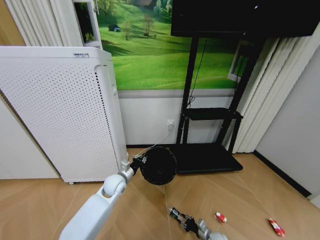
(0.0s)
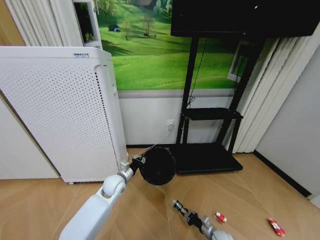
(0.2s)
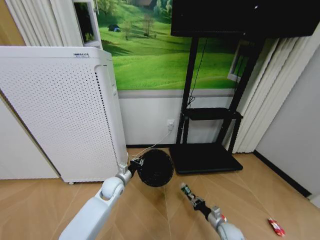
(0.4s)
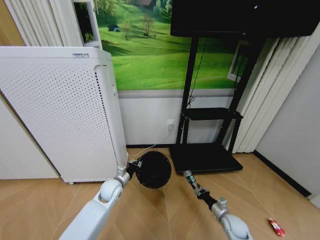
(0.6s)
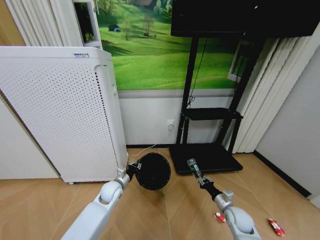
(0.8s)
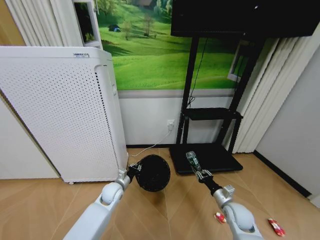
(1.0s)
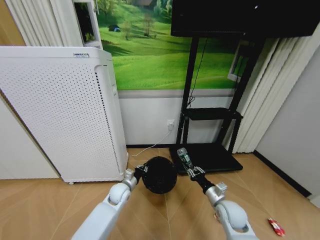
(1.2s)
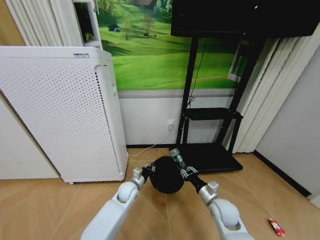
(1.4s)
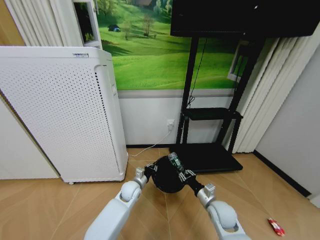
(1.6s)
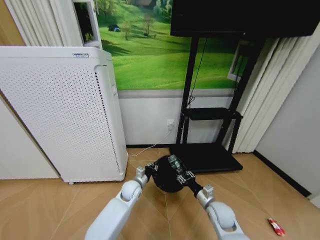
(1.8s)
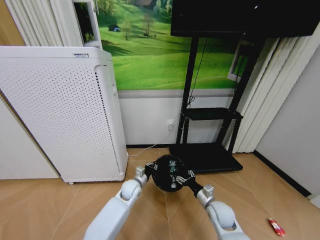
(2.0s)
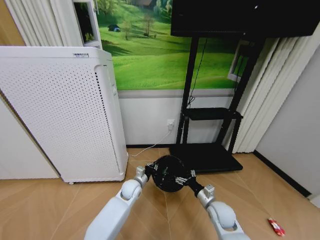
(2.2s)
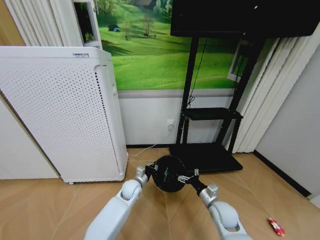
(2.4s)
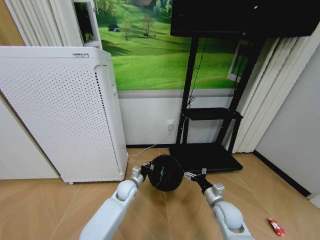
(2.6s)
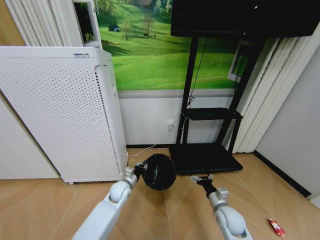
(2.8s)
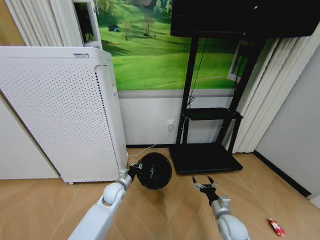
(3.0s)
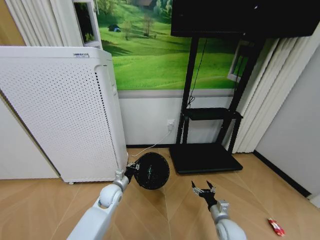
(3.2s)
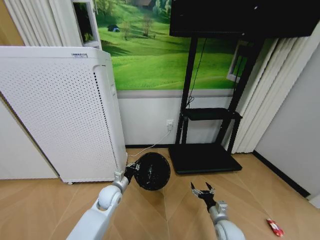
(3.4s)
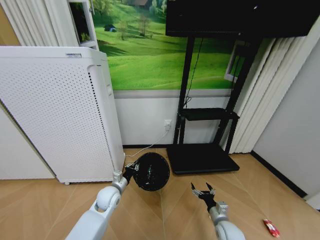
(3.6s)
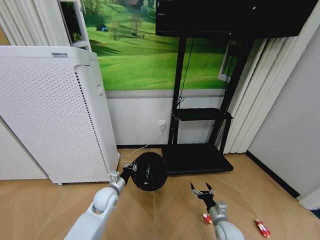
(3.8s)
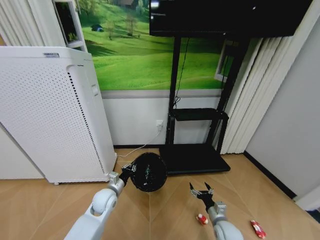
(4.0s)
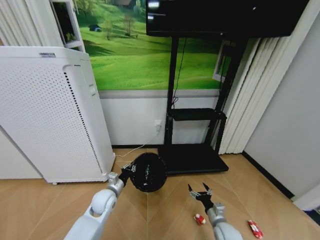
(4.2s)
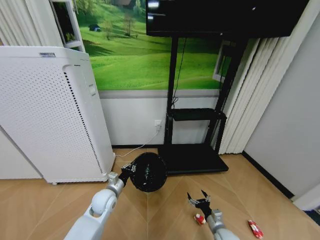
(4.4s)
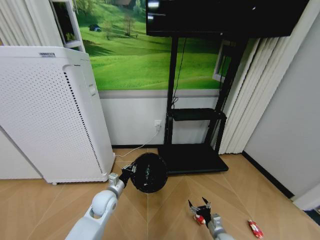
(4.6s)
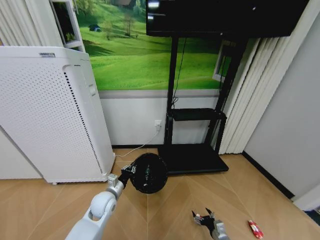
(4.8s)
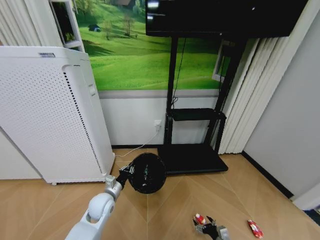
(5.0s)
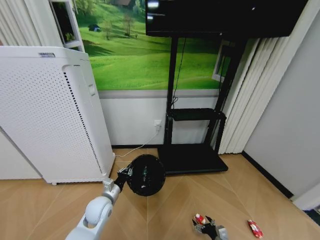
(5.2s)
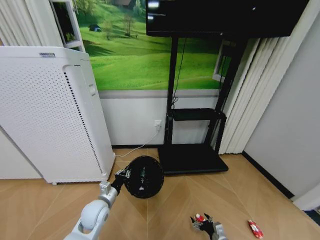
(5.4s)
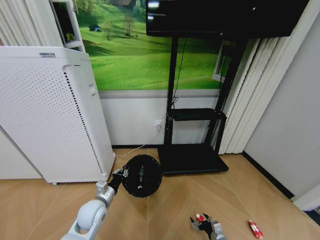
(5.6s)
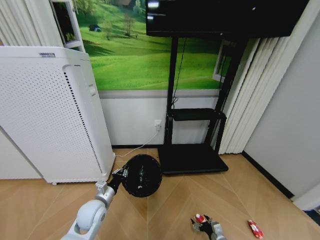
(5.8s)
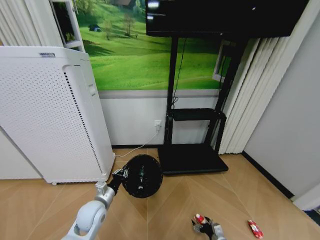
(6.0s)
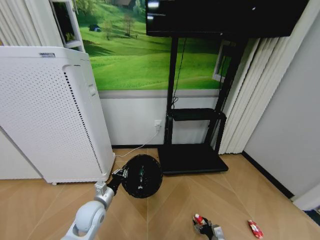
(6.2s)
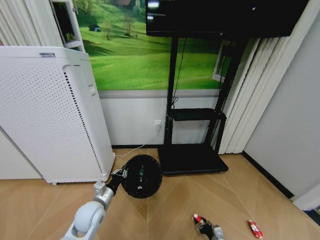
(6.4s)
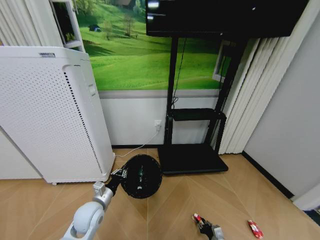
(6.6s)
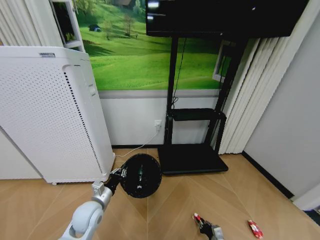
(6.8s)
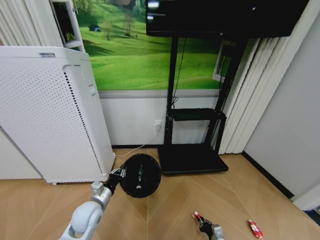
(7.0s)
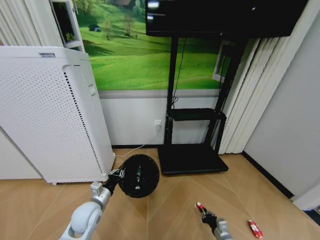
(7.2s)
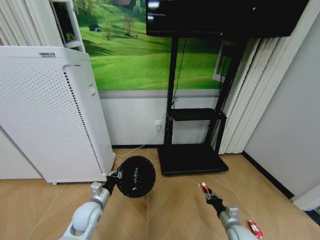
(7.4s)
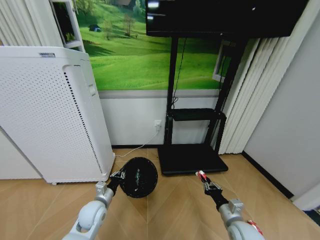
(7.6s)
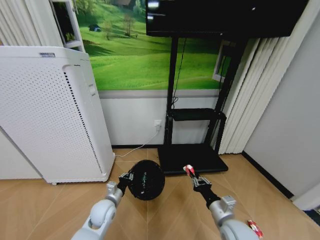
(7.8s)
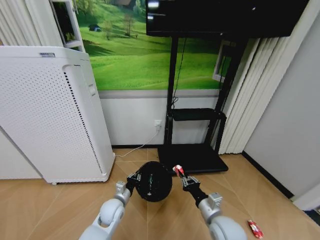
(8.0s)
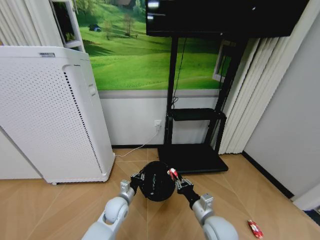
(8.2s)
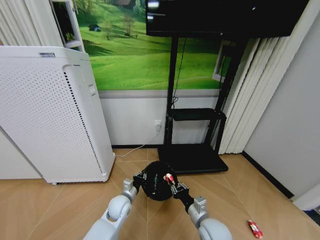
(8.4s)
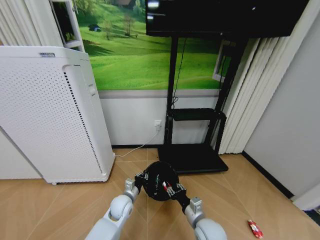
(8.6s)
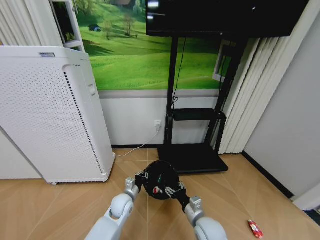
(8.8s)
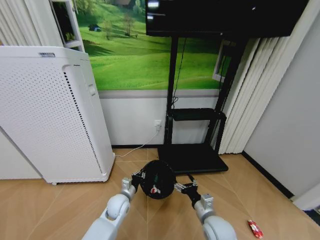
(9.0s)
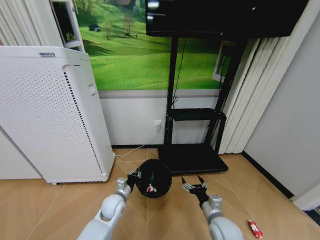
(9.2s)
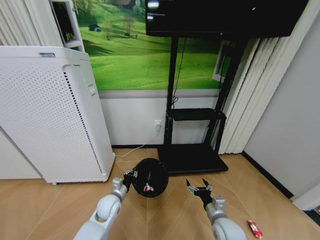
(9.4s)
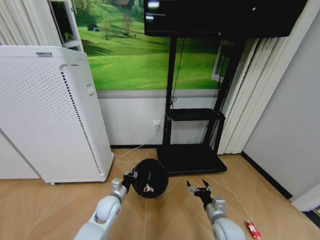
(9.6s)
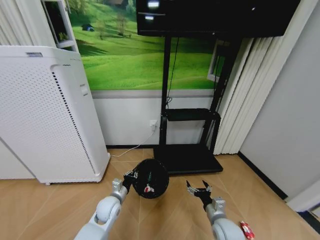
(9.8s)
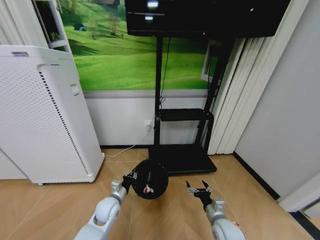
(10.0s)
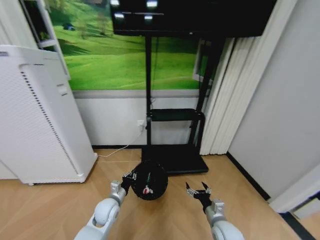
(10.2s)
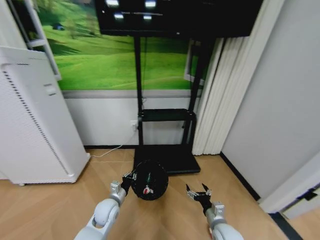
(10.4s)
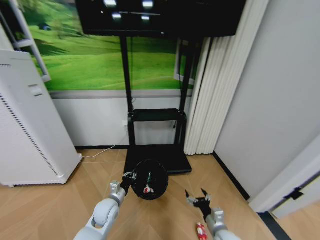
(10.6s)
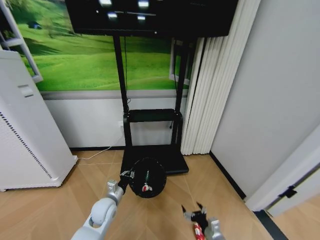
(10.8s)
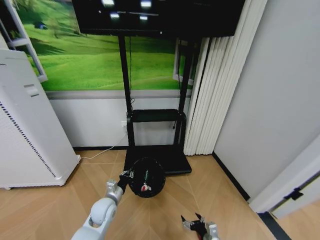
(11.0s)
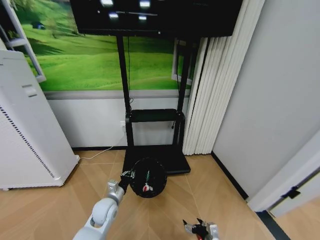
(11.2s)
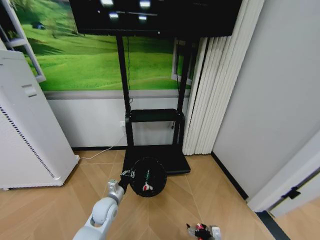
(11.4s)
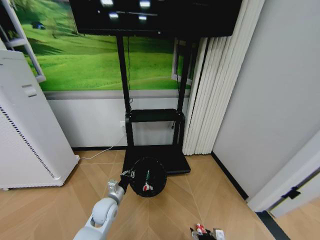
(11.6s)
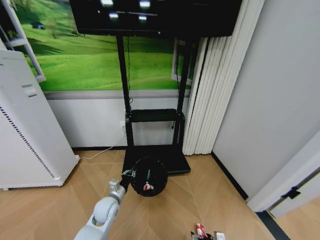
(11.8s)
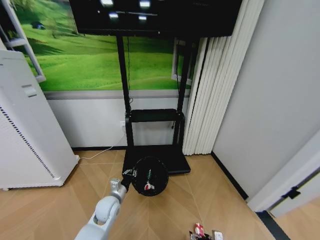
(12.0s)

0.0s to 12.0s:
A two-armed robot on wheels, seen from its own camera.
Task of the whole recording: Pick up the trash bin and place the garbage on the floor into it.
0.0s to 1.6s: The left gripper is displaced to the right and downward by roughly 10 cm. Meanwhile the right gripper travels upward by roughly 25 cm.
1.6s to 3.0s: The right gripper travels downward by approximately 5 cm, and opens its fingers. Meanwhile the left gripper shifts about 10 cm to the left.
3.0s to 4.4s: The right gripper moves downward, approximately 5 cm, while the left gripper moves some 5 cm.
4.4s to 6.0s: The right gripper travels downward by approximately 10 cm. Meanwhile the left gripper heads backward, covering roughly 5 cm.
6.0s to 7.6s: The right gripper moves upward, some 20 cm, and closes.
7.6s to 9.0s: The left gripper shifts some 10 cm to the right. Meanwhile the right gripper goes approximately 10 cm to the left, and opens up.
9.0s to 10.4s: The left gripper changes place by approximately 5 cm, while the right gripper moves to the right and downward, about 10 cm.
10.4s to 12.0s: The right gripper shifts roughly 15 cm downward.

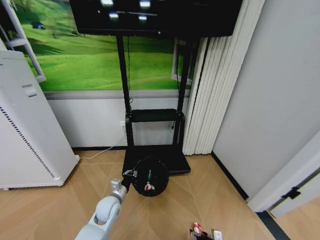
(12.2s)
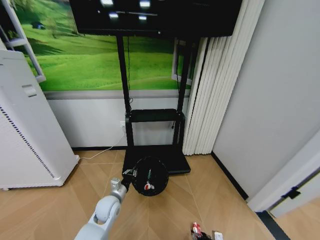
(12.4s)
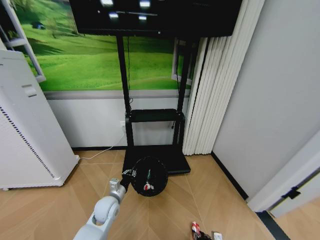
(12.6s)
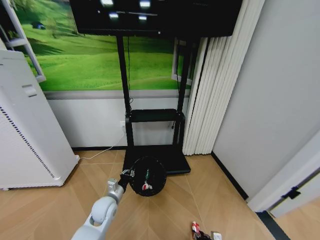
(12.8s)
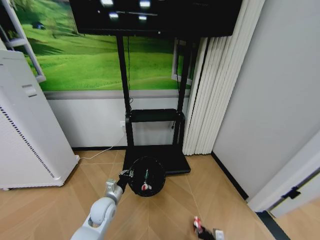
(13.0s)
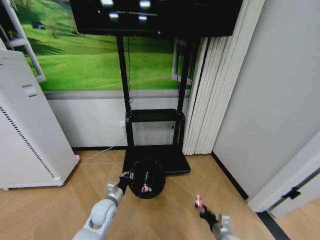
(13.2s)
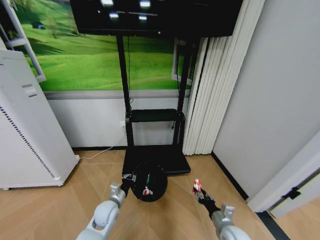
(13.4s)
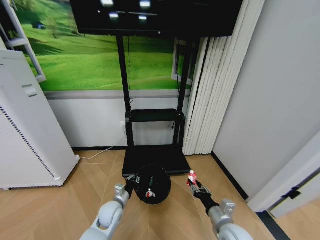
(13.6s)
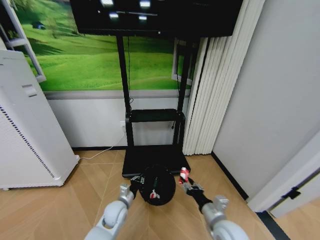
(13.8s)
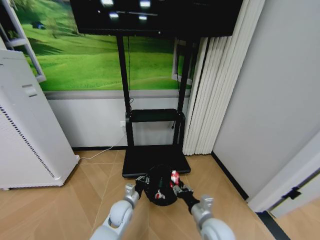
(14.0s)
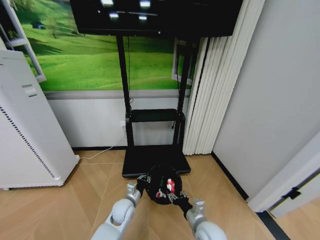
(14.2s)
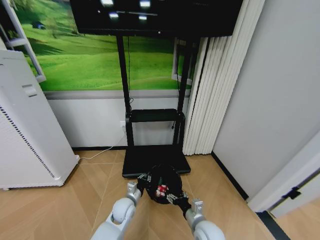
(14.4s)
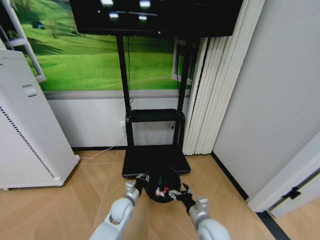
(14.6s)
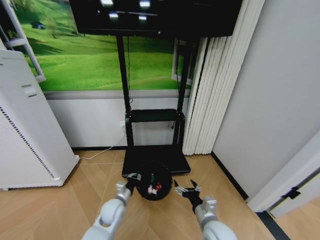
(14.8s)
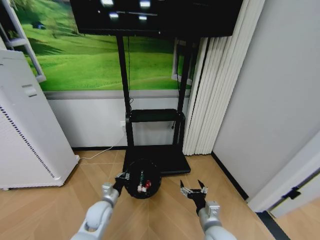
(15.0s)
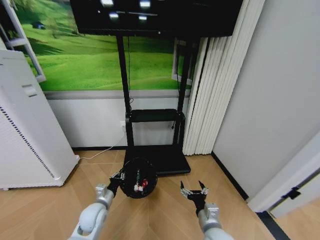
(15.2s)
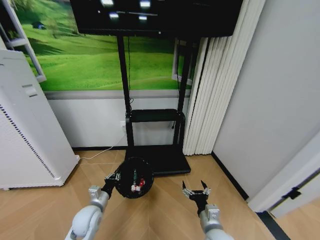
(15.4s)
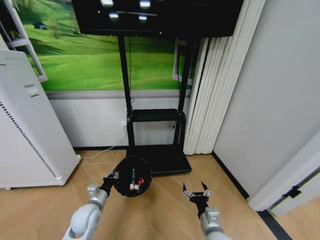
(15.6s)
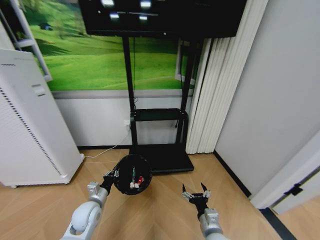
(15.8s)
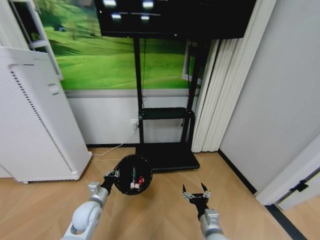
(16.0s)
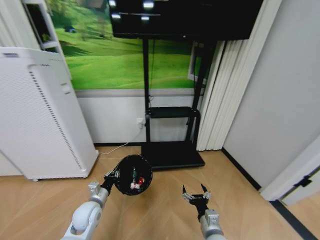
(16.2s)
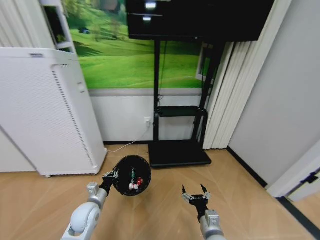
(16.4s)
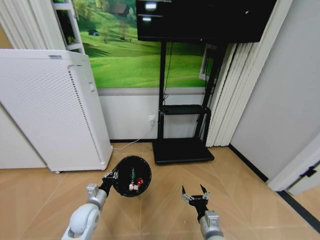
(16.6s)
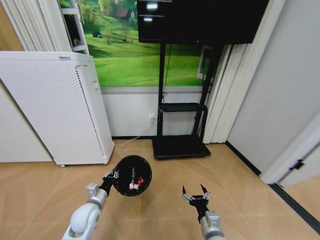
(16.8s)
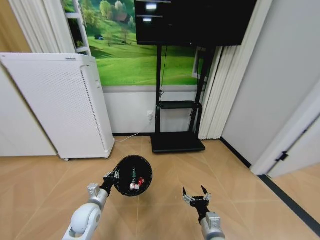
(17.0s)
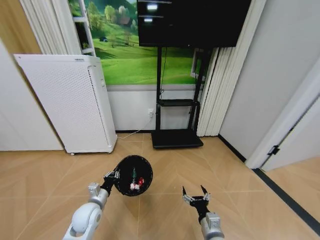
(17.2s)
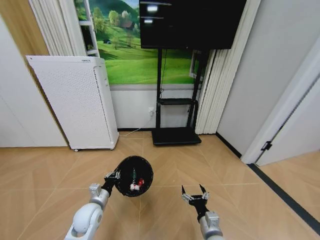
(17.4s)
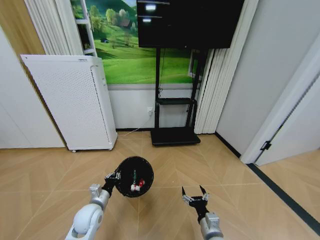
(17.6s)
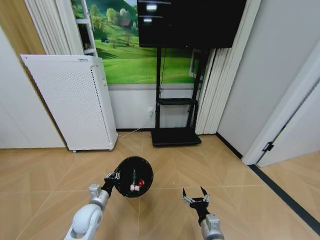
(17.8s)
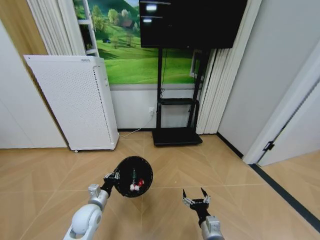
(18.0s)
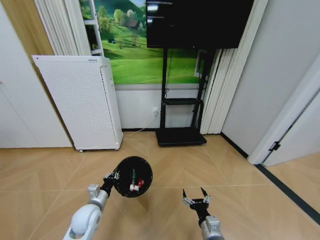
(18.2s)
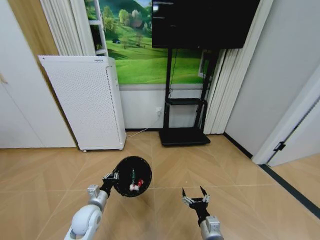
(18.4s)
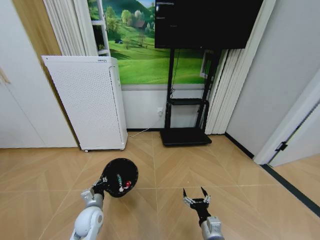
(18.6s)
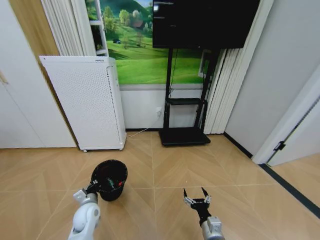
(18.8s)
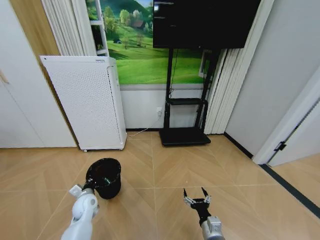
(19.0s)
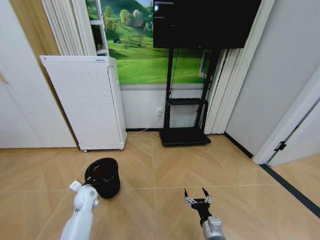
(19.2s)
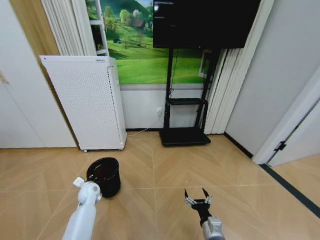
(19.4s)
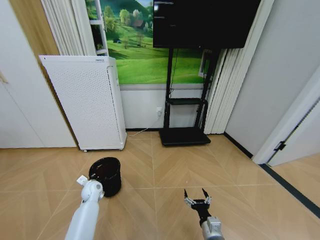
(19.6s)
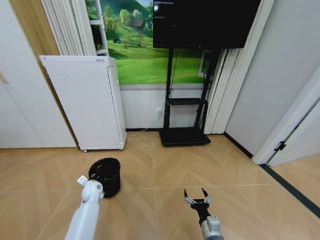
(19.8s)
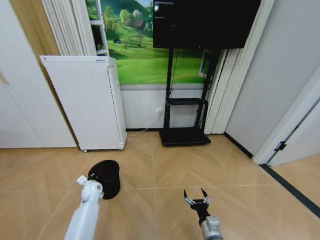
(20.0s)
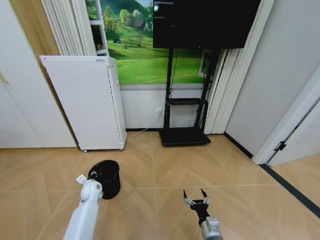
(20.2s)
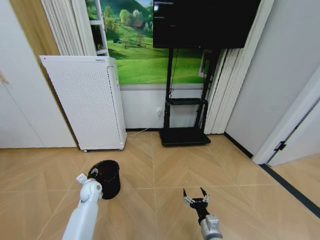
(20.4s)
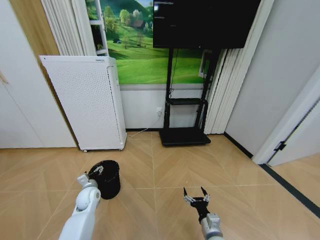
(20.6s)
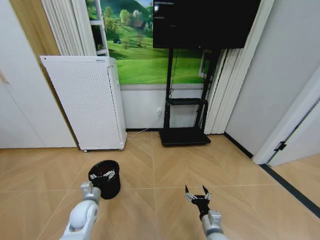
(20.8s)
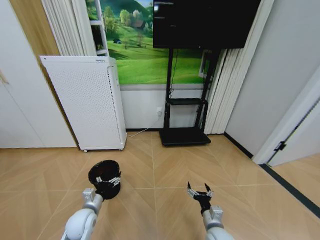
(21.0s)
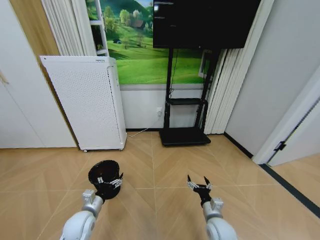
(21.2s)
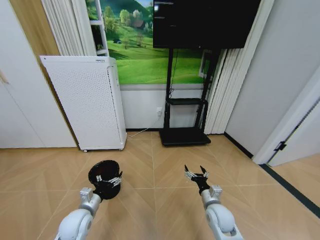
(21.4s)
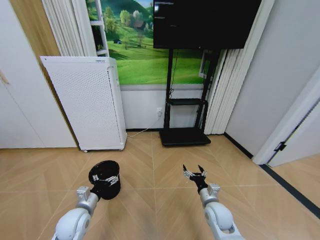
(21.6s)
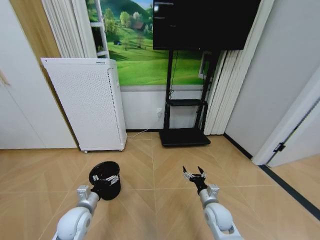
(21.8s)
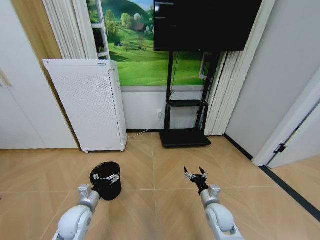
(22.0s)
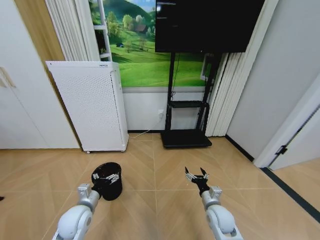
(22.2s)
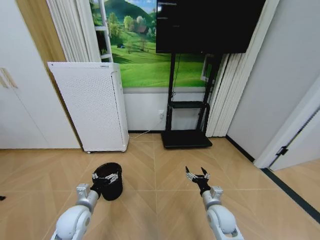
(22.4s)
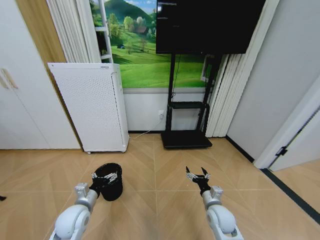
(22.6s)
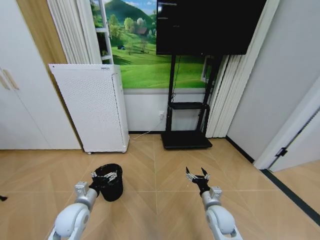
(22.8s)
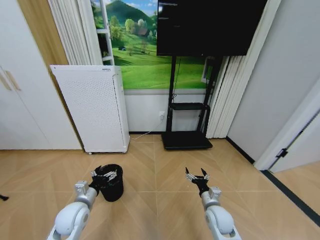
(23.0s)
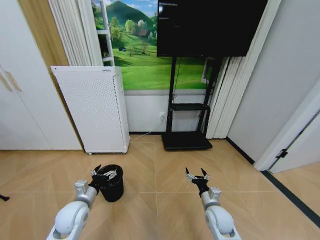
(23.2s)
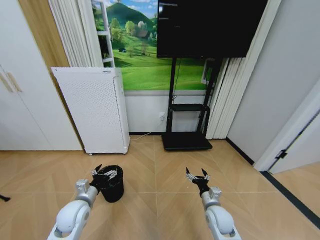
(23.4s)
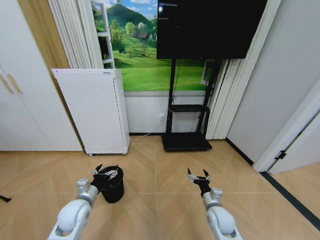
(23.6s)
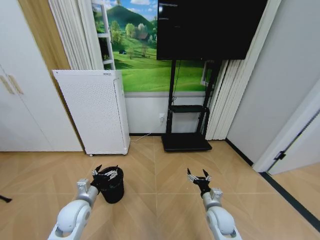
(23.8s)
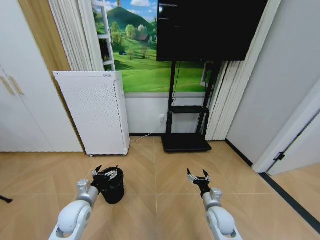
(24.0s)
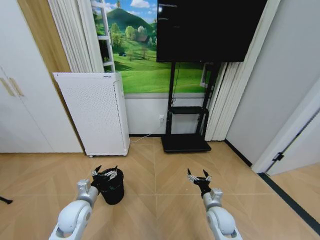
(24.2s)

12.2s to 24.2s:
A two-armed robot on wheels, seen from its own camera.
Task of the whole recording: Pick up the trash bin and place the garbage on the floor into it.
12.2s to 13.8s: The right gripper heads upward, covering about 25 cm, and closes.
13.8s to 15.2s: The right gripper opens up, while the left gripper travels to the left by approximately 10 cm.
18.2s to 19.8s: The left gripper travels forward, downward and to the left by about 15 cm.
19.8s to 21.2s: The right gripper travels forward by some 10 cm. Meanwhile the left gripper shifts approximately 15 cm backward and upward, and opens.
21.2s to 24.2s: The grippers stay close to where they were, moving slightly.
